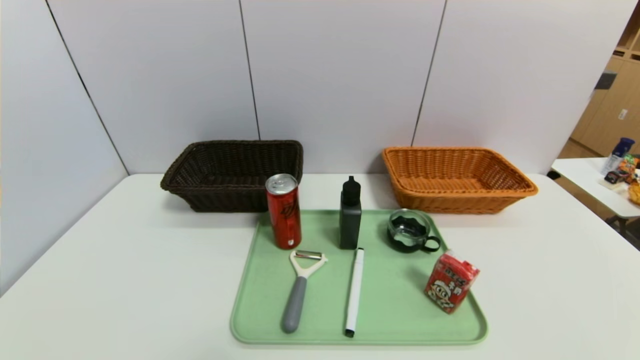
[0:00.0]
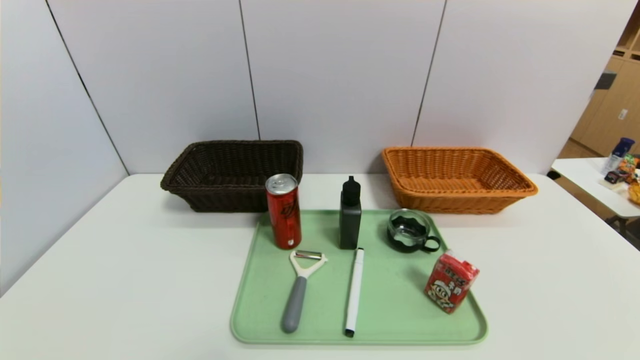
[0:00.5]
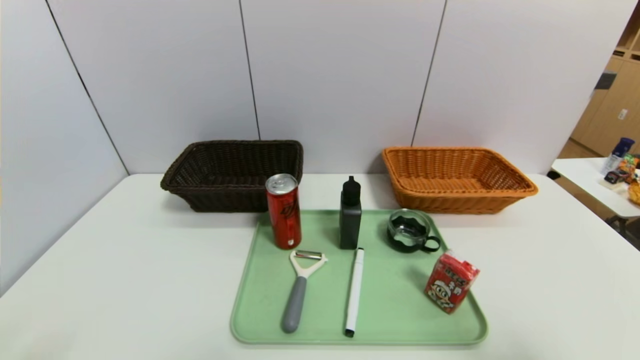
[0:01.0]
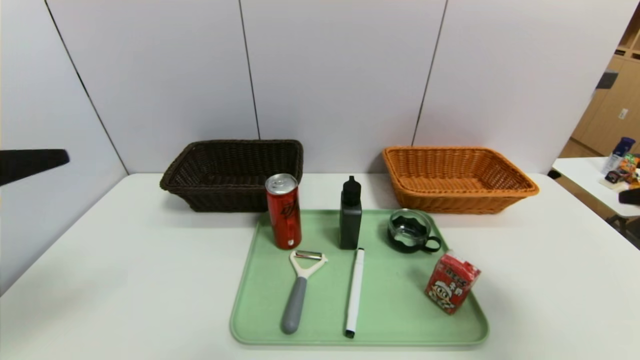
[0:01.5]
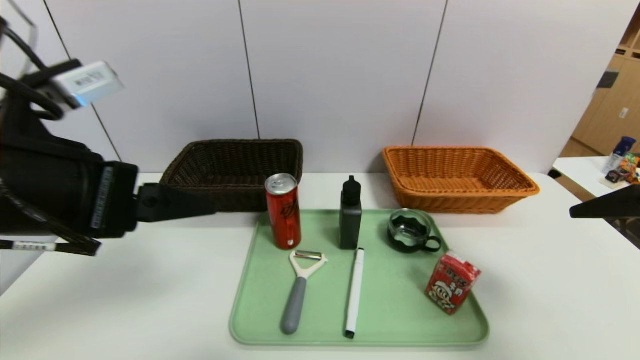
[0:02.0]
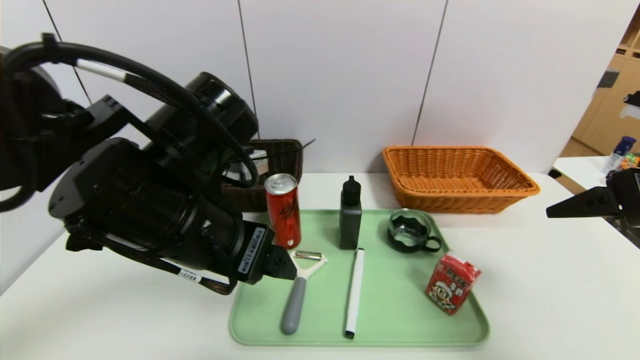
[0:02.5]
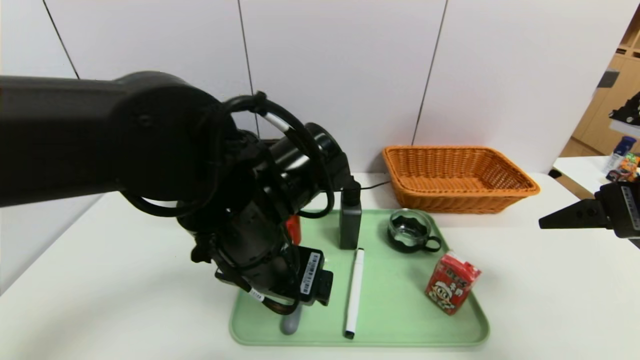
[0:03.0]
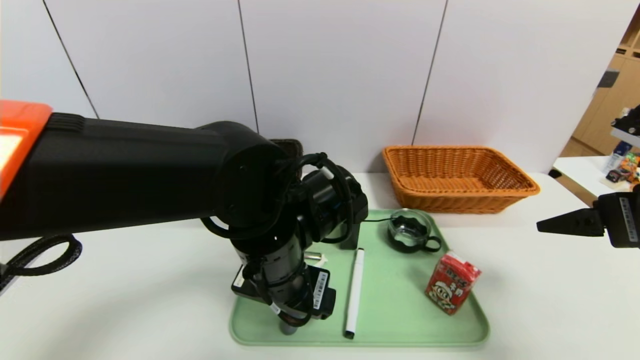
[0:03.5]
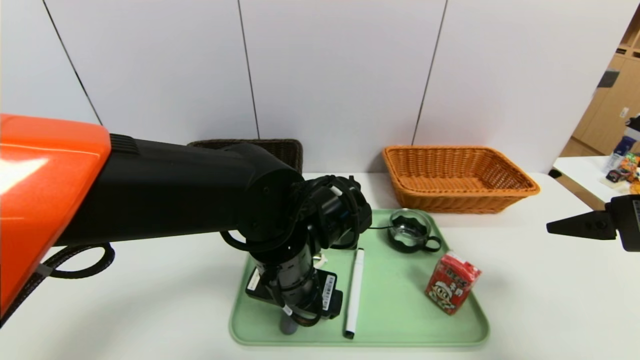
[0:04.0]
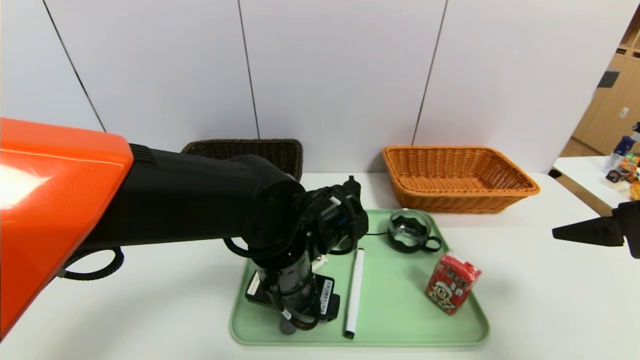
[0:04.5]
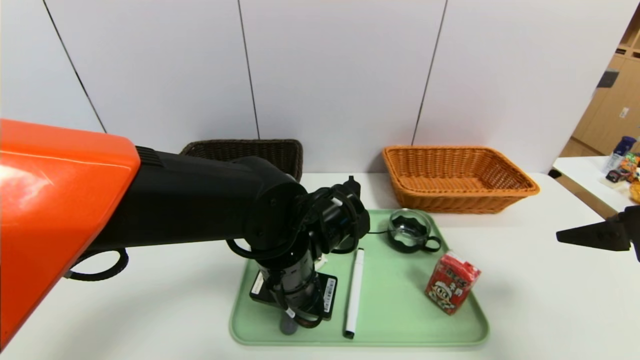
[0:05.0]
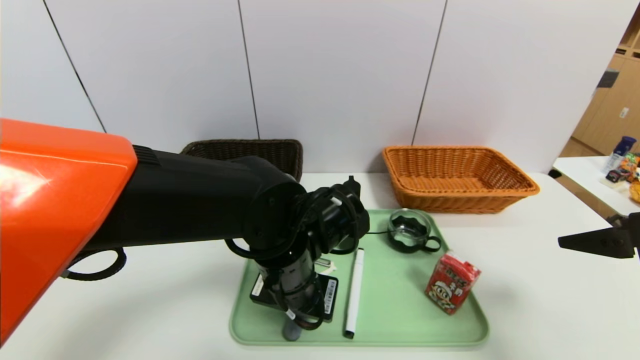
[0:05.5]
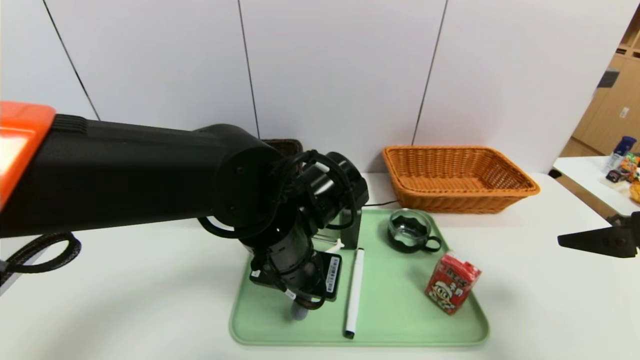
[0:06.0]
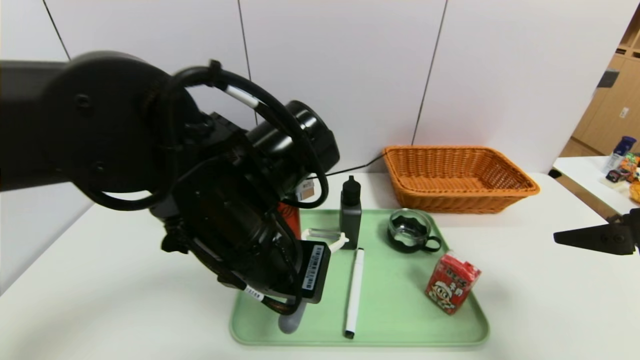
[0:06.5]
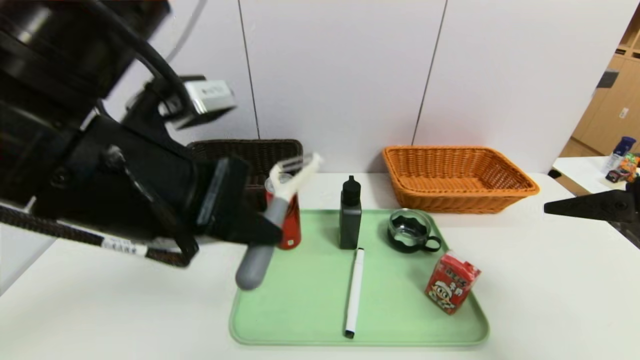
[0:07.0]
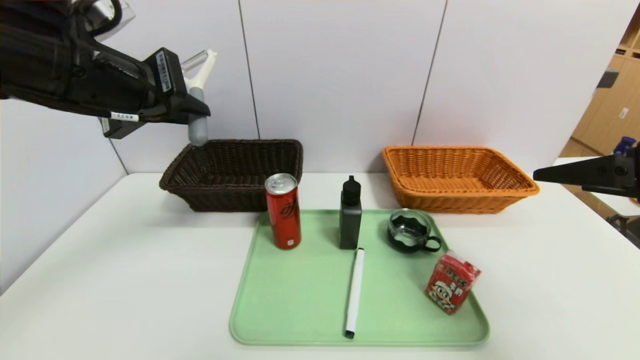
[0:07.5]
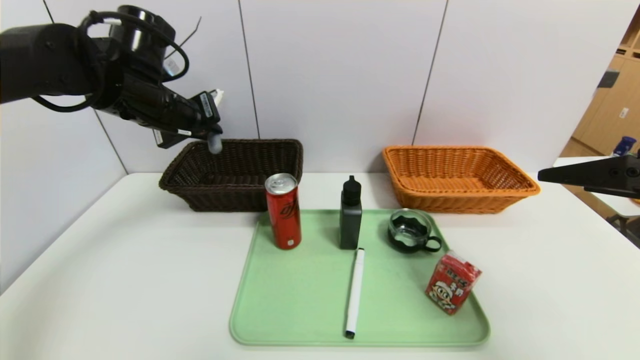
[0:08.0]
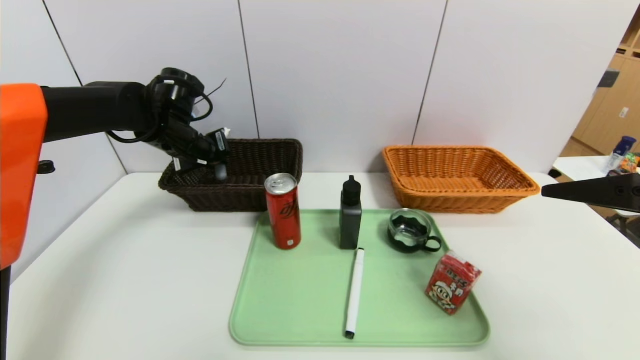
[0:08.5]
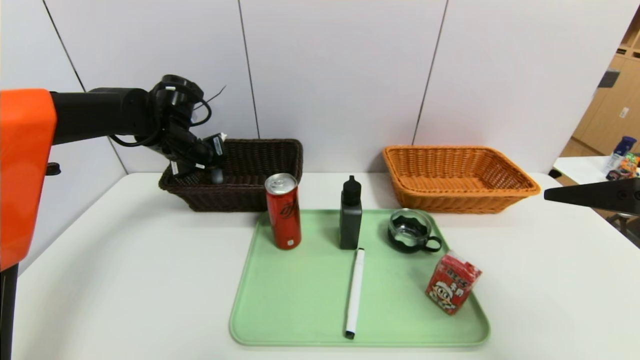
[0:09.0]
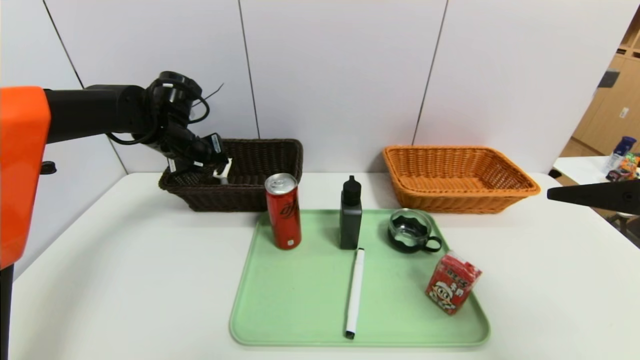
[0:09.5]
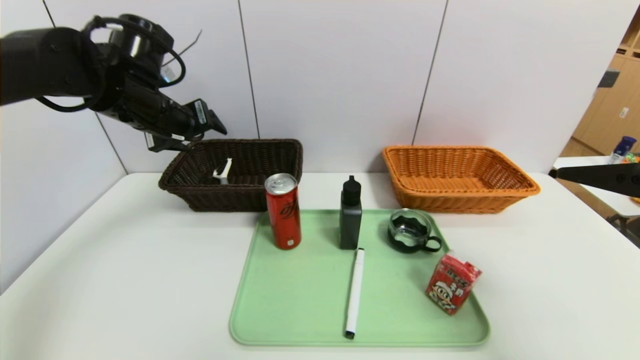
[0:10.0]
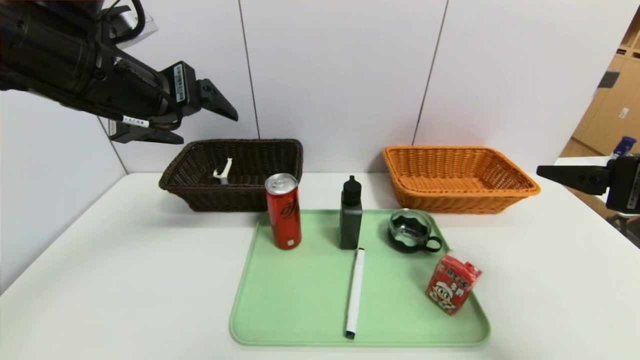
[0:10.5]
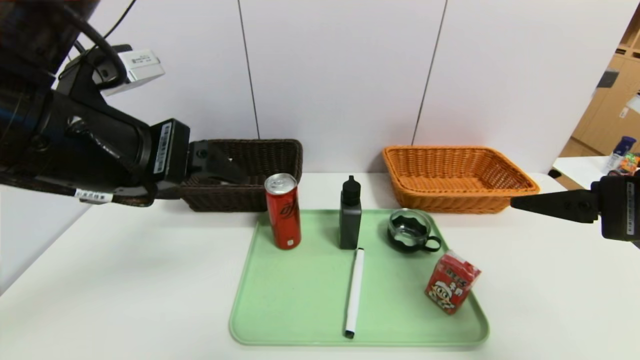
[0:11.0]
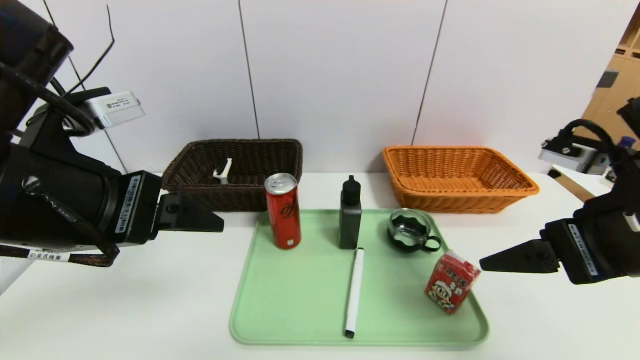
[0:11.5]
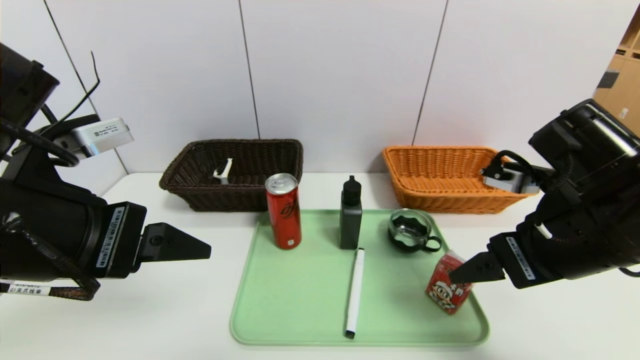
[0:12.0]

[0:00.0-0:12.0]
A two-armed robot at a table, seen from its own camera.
Task of the whole recording: place the food in the right basket with the right gripper, and place the non food items in the left basket with the left gripper.
Step, 0:00.0 to 0:09.5: Grasp the peeler and put it in the left basket.
0:00.0 to 0:02.0: Both grippers move upward and forward, roughly 30 cm.
0:02.0 to 0:04.0: The left gripper is displaced to the right, downward and forward by approximately 25 cm.
0:04.0 to 0:06.0: The left gripper closes.
0:06.0 to 0:08.0: The left gripper travels to the left, forward and upward by some 25 cm.
0:08.0 to 0:10.0: The left gripper reaches some 5 cm downward, then returns, and opens its fingers.
0:10.0 to 0:12.0: The right gripper travels to the left, downward and forward by some 10 cm. Meanwhile the left gripper heads backward, covering approximately 20 cm.

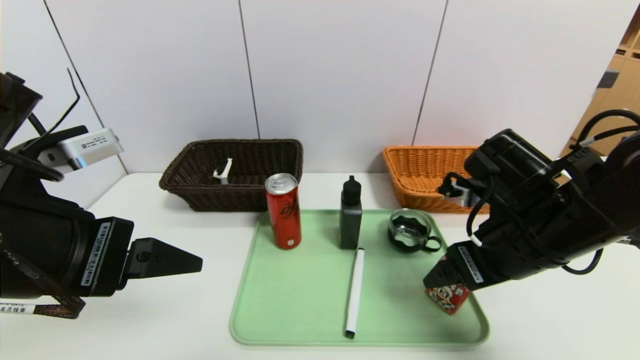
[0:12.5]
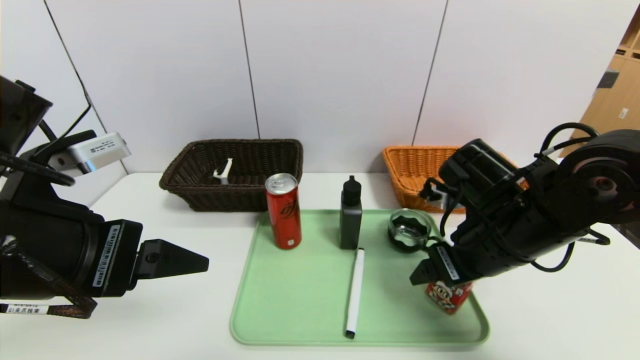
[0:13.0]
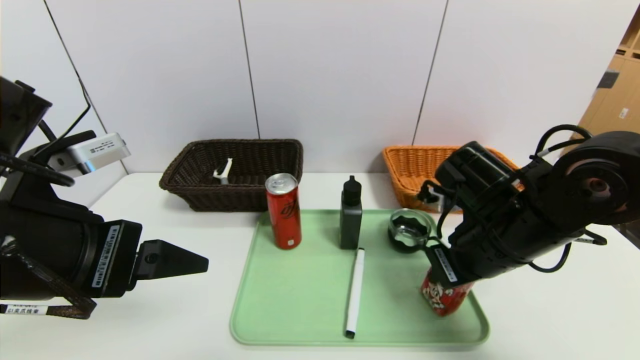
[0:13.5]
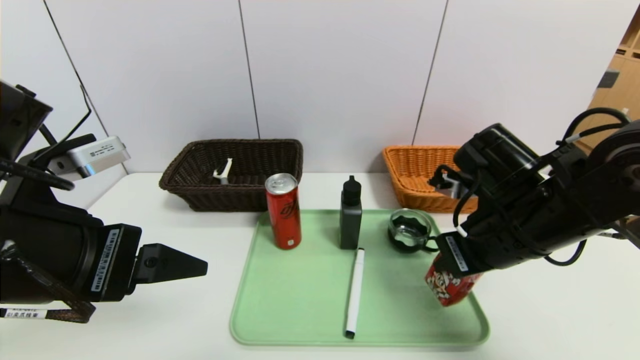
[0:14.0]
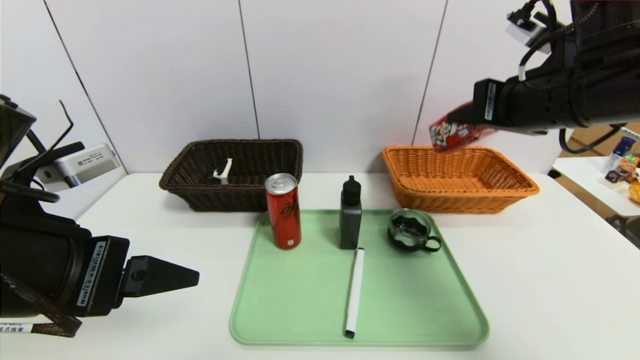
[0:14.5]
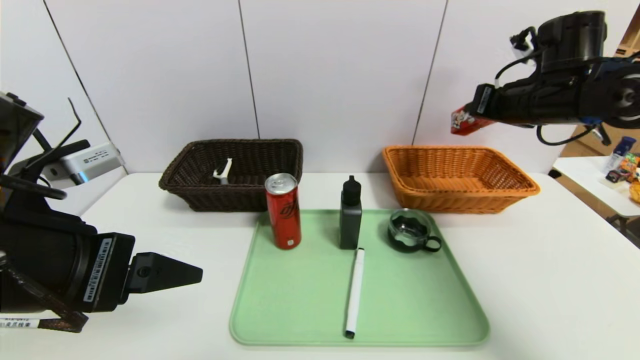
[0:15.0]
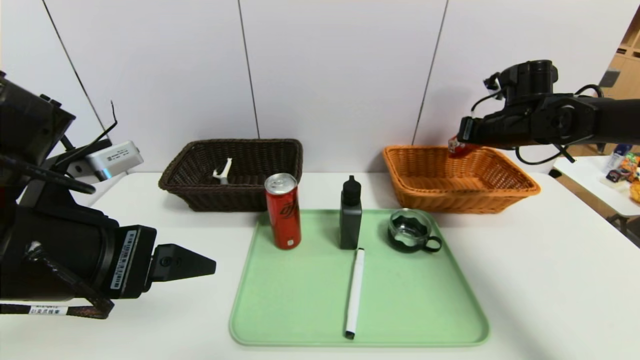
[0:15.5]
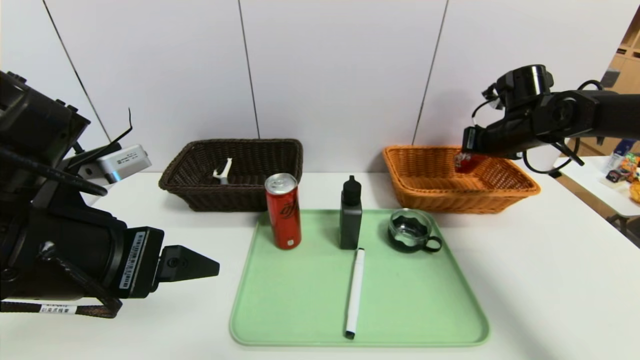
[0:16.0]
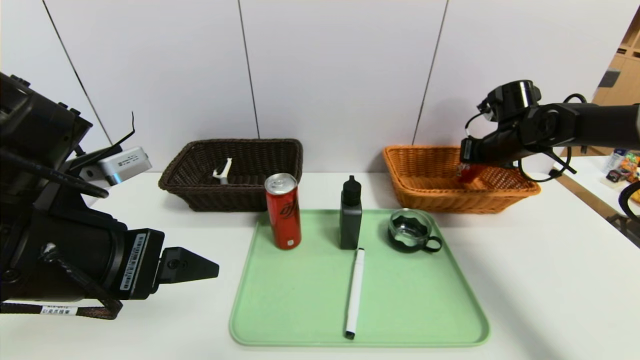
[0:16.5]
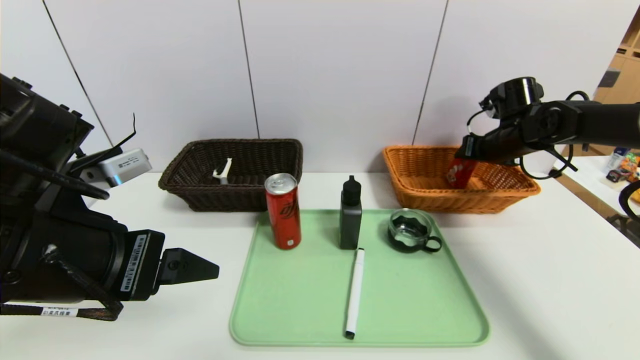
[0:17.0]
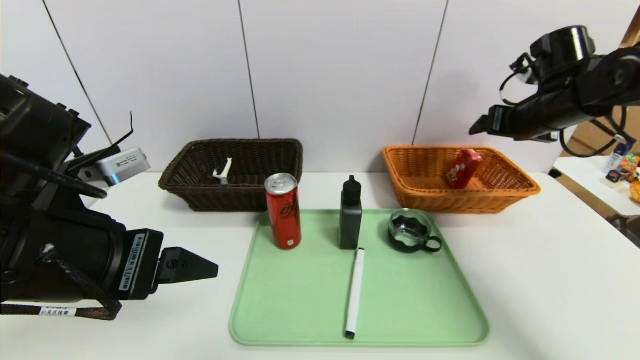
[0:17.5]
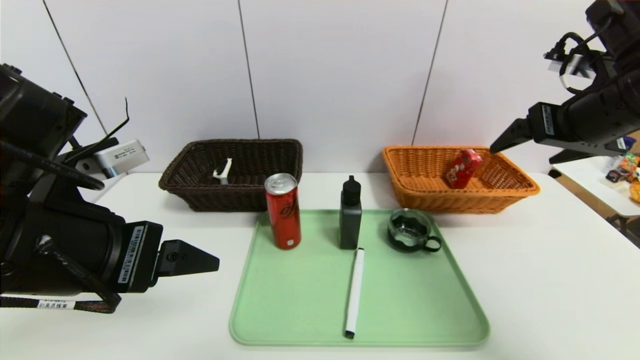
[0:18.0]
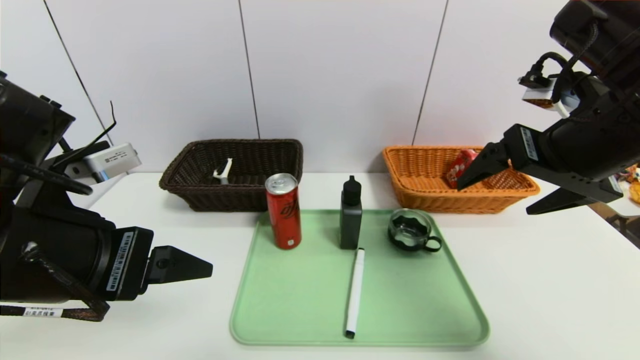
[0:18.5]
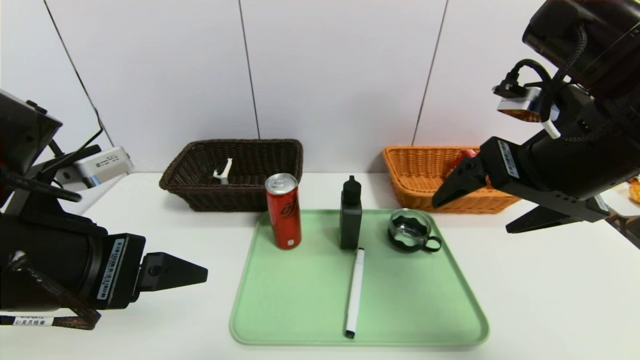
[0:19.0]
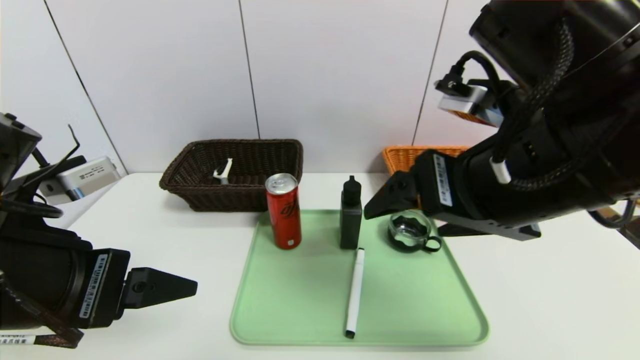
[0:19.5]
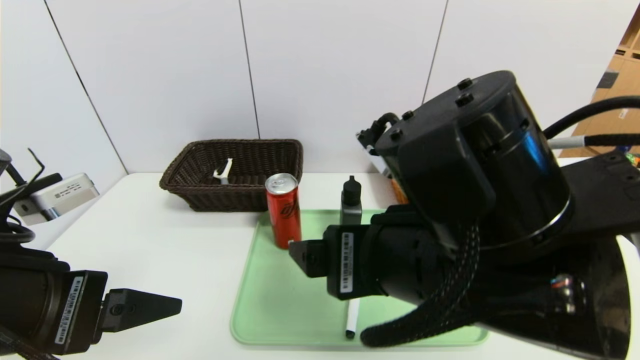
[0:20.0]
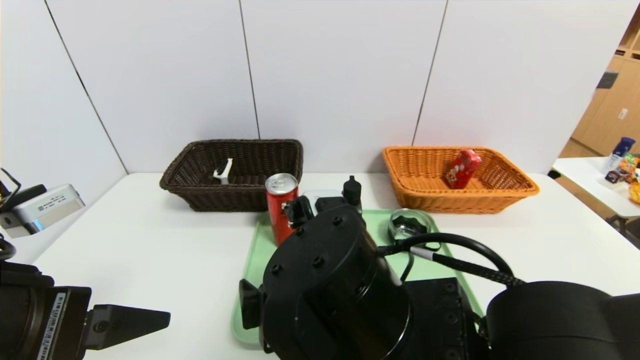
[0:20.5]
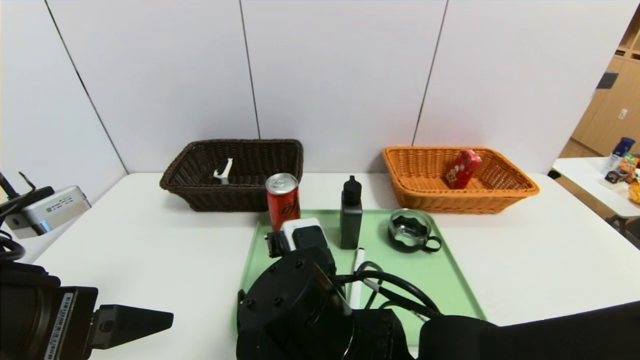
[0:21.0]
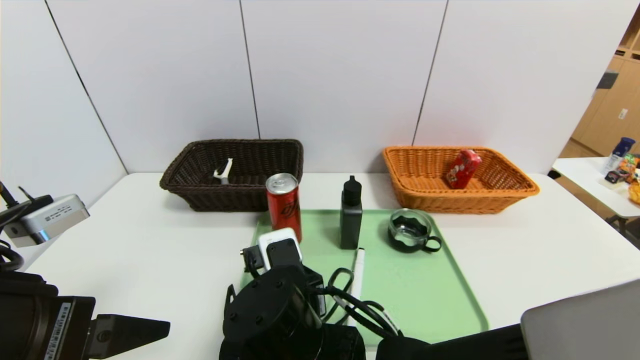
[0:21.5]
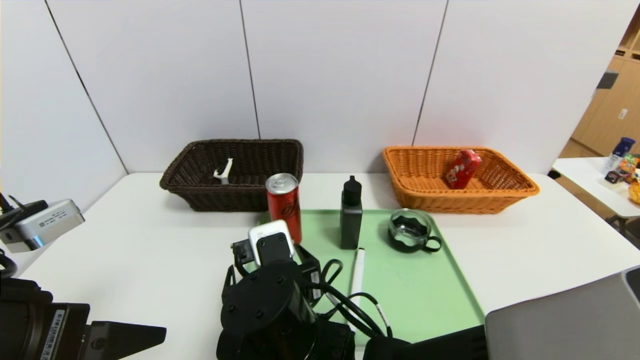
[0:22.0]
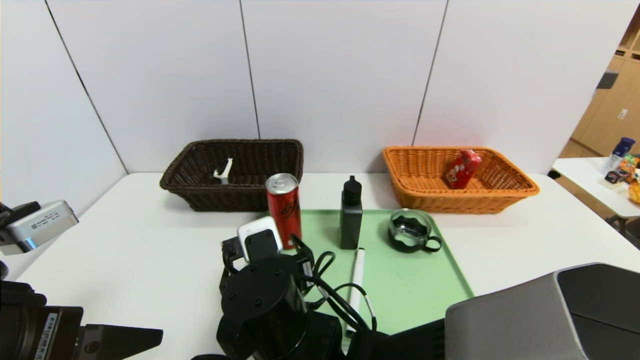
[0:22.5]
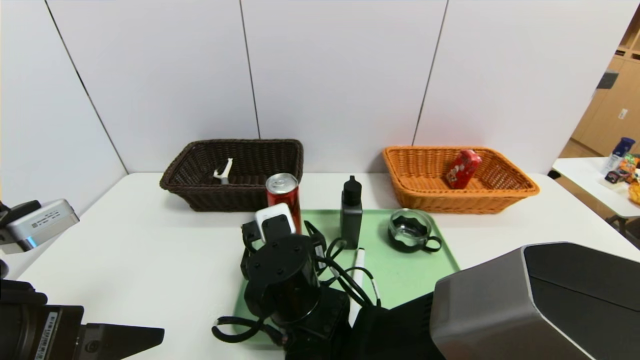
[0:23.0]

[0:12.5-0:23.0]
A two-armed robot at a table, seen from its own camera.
Task of the whole recording: place the food in the right basket with the right gripper, and place the non food items in the left basket with the left gripper.
Step, 0:12.5 to 0:16.5: Grasp the ad milk and put it in the right basket.
0:12.5 to 0:14.5: The right gripper moves upward and forward, about 15 cm, and closes.
0:14.5 to 0:16.5: The right gripper shifts approximately 25 cm forward, downward and to the right.
0:16.5 to 0:19.0: The right gripper heads backward, to the left and upward, covering approximately 30 cm, and opens its fingers.
0:19.0 to 0:21.0: The right gripper heads to the left and downward, covering roughly 25 cm.
0:21.0 to 0:23.0: The right gripper heads forward, covering roughly 5 cm.
